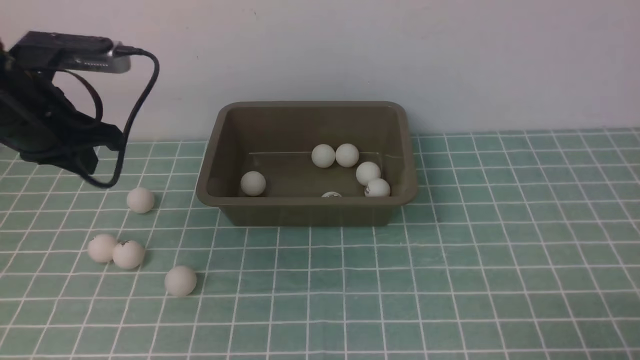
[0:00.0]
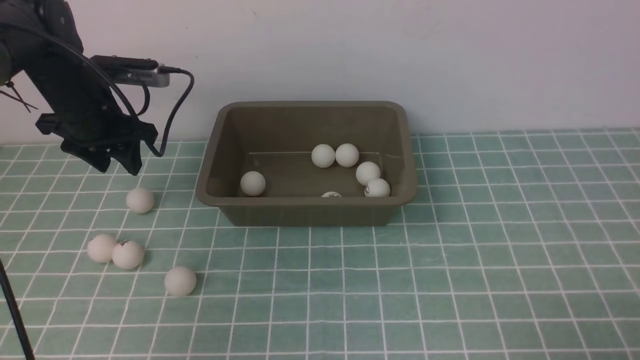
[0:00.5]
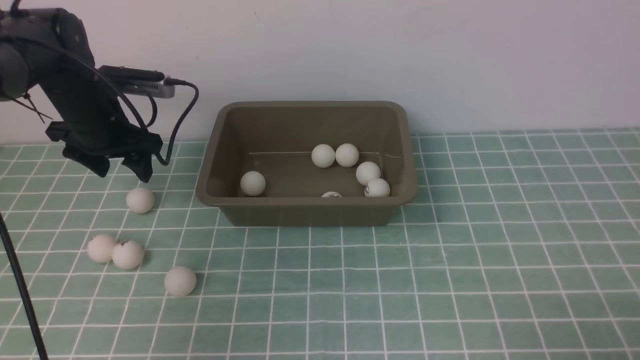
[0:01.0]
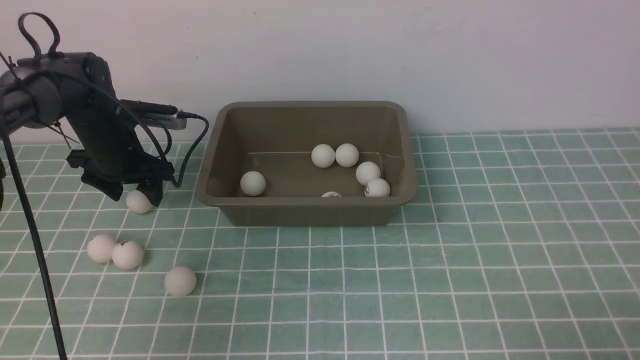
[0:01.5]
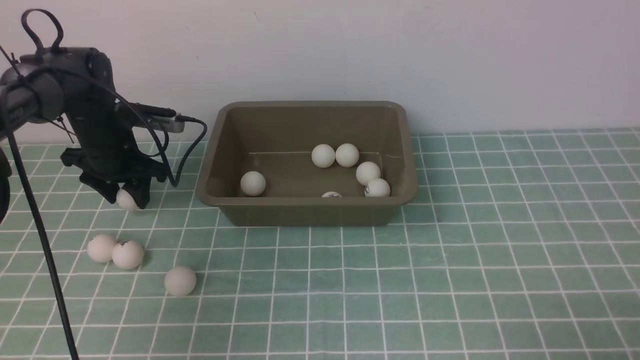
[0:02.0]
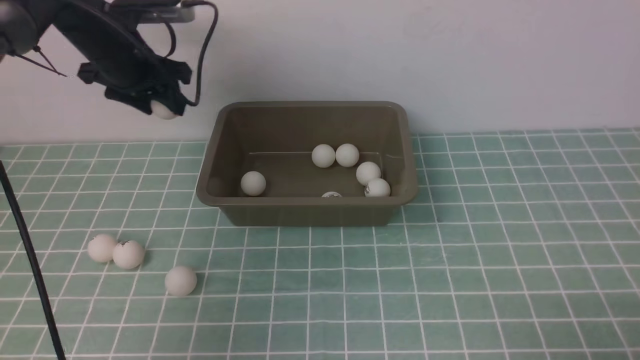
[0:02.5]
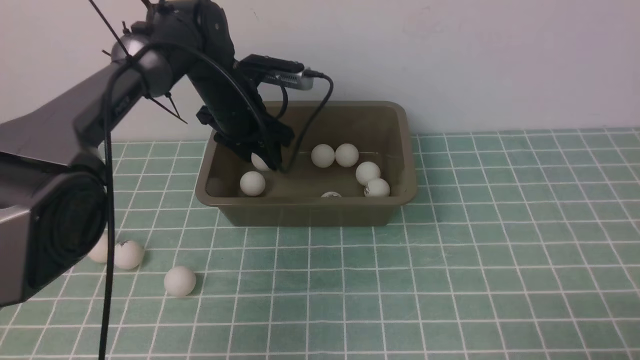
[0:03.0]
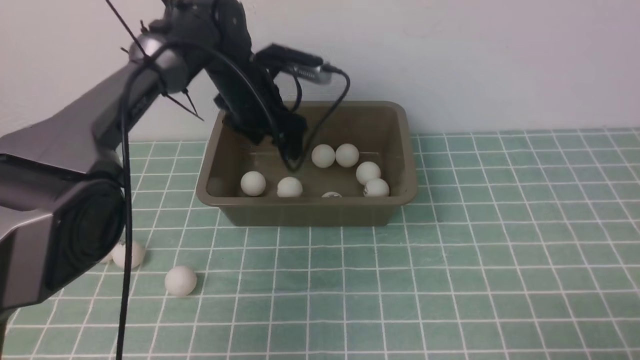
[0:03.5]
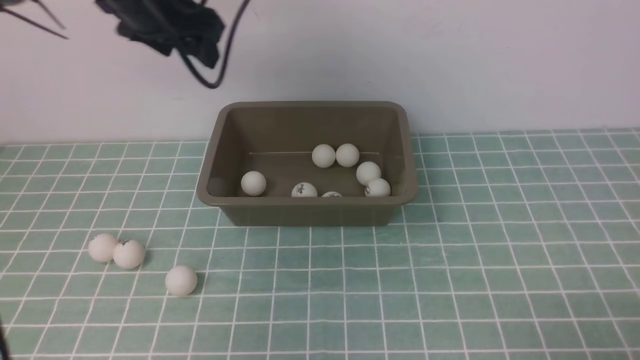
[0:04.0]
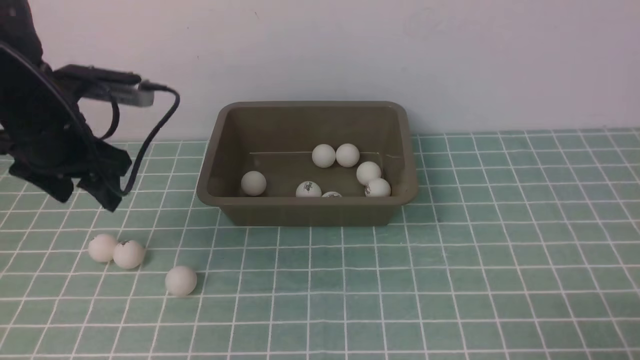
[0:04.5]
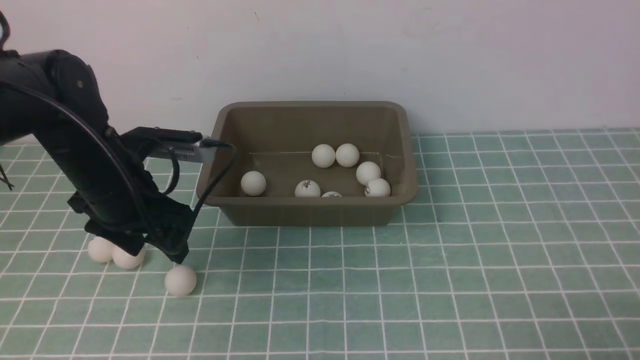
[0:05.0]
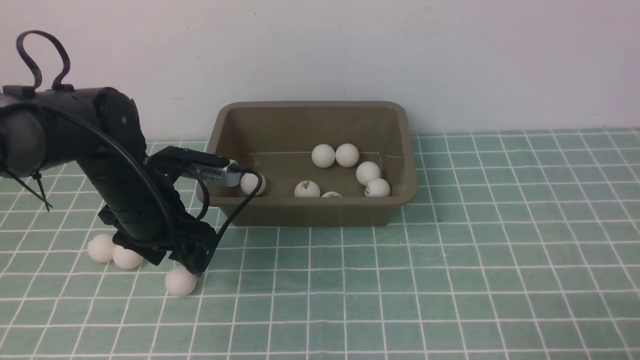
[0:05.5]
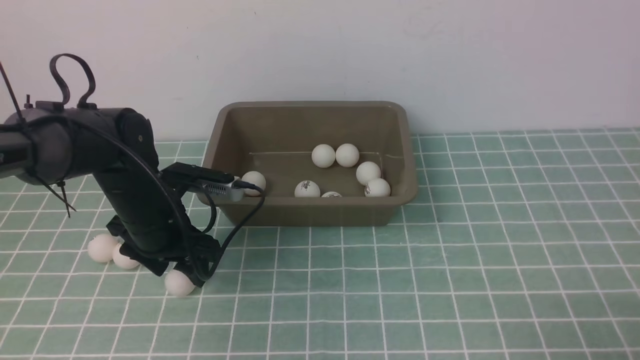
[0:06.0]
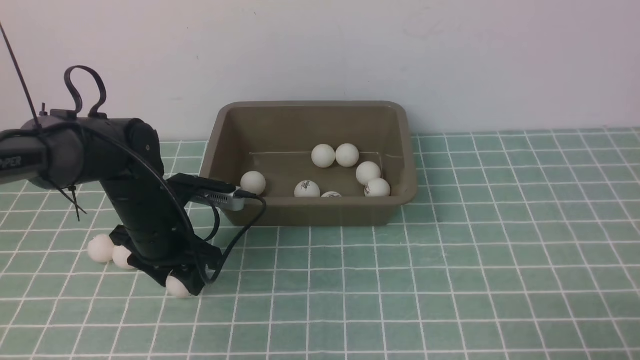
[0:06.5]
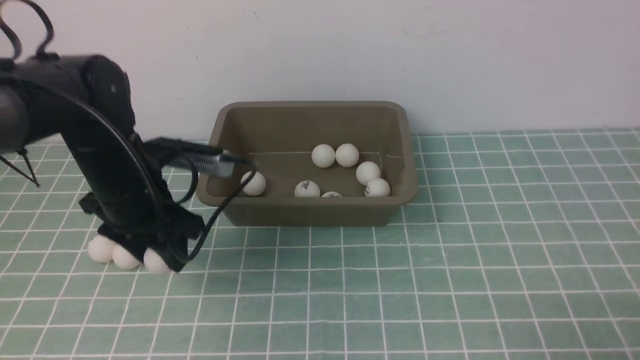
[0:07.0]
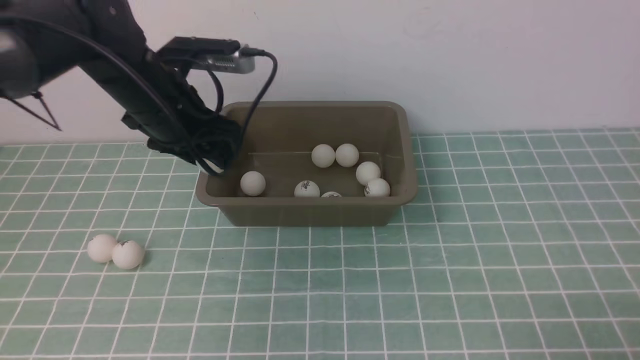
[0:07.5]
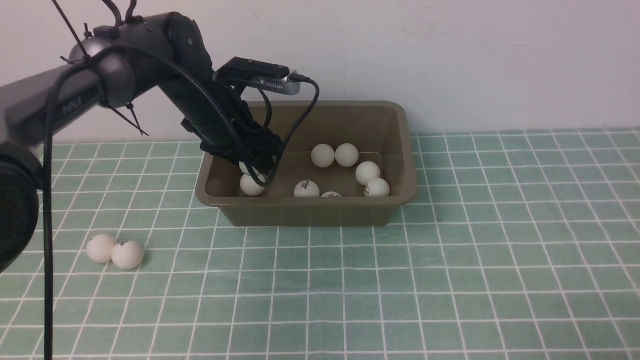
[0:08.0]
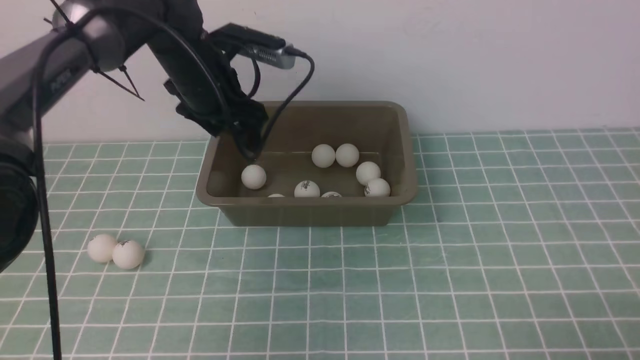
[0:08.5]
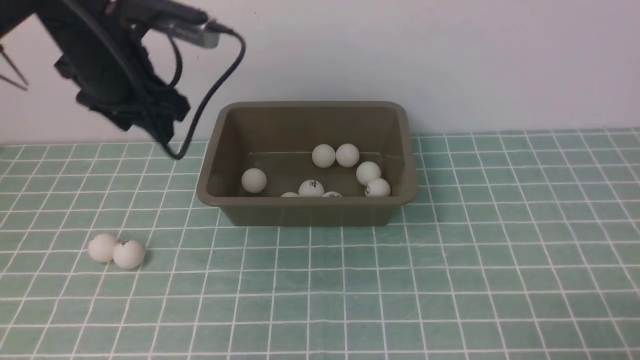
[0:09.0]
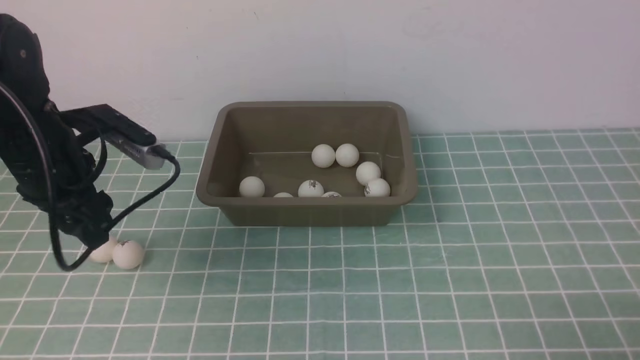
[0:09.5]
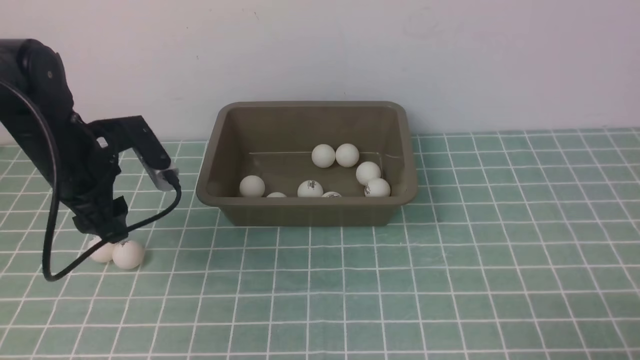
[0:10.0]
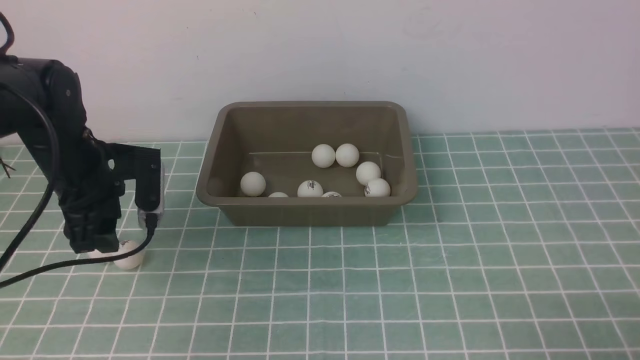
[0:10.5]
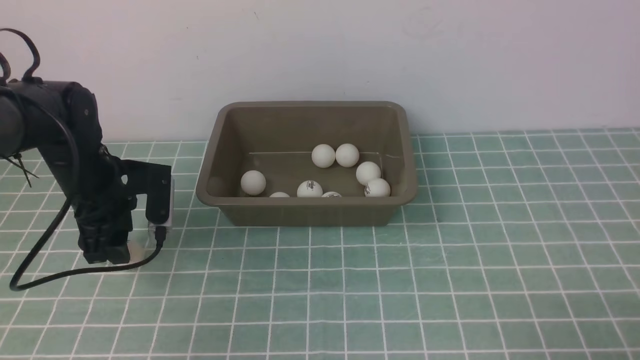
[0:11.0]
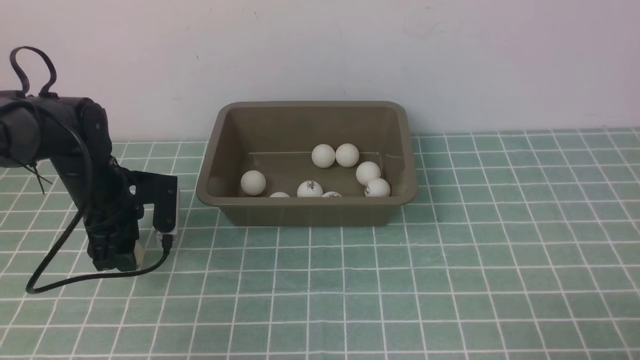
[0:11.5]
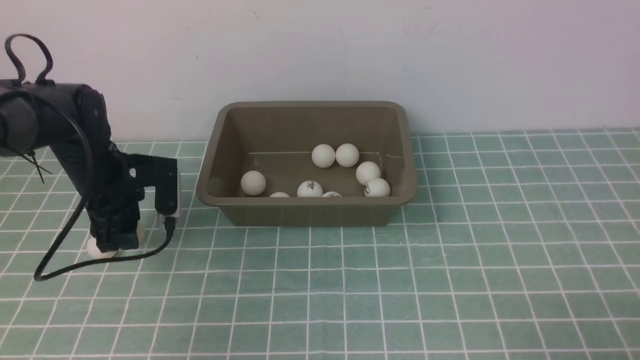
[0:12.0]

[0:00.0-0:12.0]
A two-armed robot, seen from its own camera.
Step, 0:00.0 to 0:02.0: use the left arm to clamp the table tennis ball closest to it.
Step, 0:02.5 to 0:03.5: use the left arm to put the table tennis ball into the box.
Step, 0:04.0 to 0:07.0: use the left arm to clamp the table tennis ball closest to it.
Step, 0:07.5 to 0:08.5: use the left arm to put the table tennis ball into the box.
0:00.0 to 0:02.0: The left gripper moves forward and downward, approximately 25 cm, and opens up.
0:02.0 to 0:04.0: The left gripper shifts roughly 20 cm upward and to the right.
0:04.0 to 0:06.0: The left gripper goes about 20 cm downward and backward.
0:06.0 to 0:08.0: The left gripper is displaced forward, upward and to the right by about 10 cm.
0:08.0 to 0:10.0: The left gripper heads to the left and backward, covering approximately 15 cm.
0:10.0 to 0:12.0: The left gripper heads downward, covering approximately 5 cm.

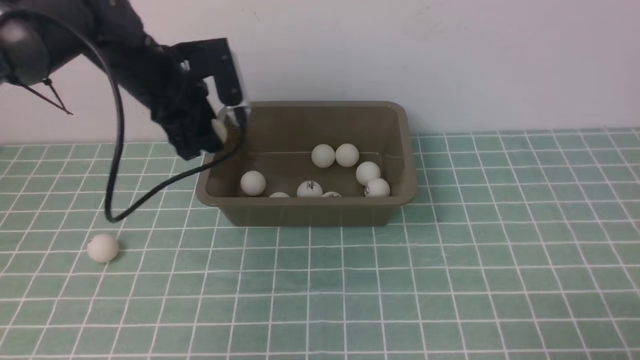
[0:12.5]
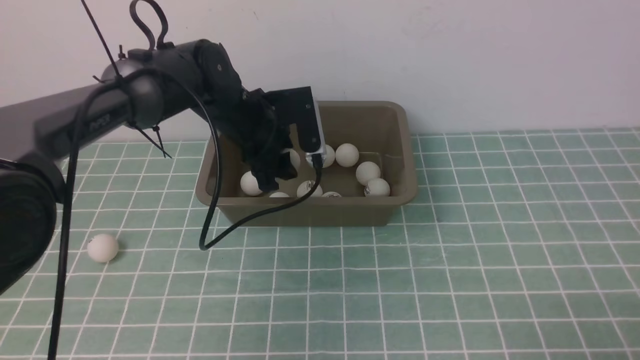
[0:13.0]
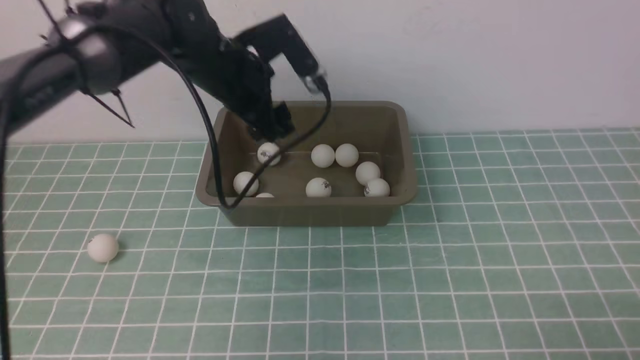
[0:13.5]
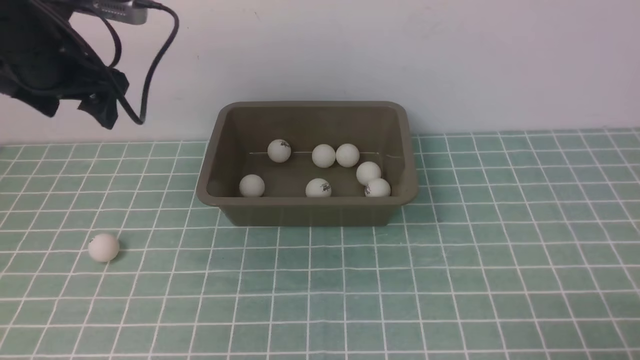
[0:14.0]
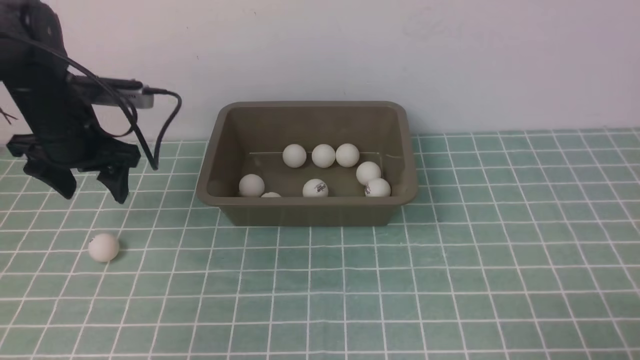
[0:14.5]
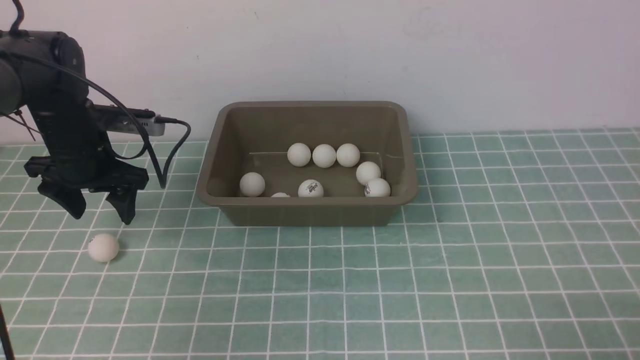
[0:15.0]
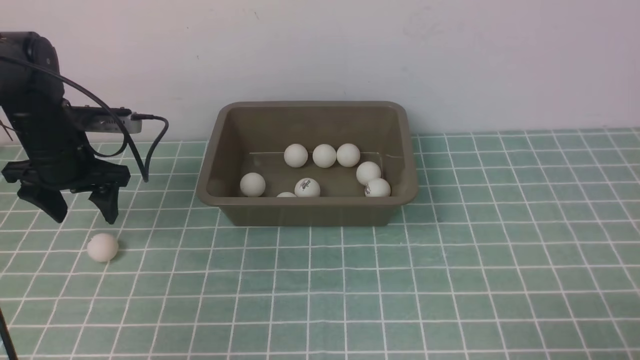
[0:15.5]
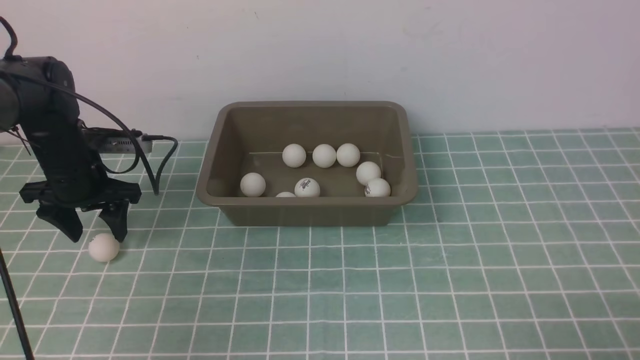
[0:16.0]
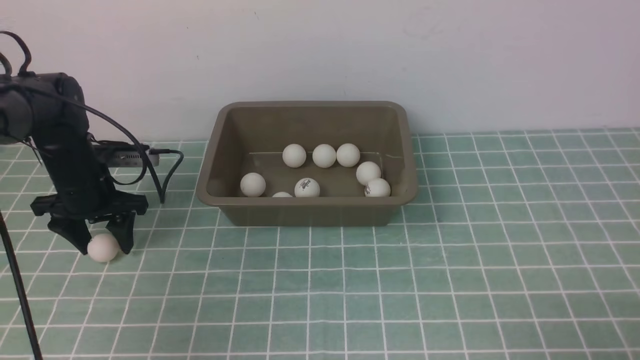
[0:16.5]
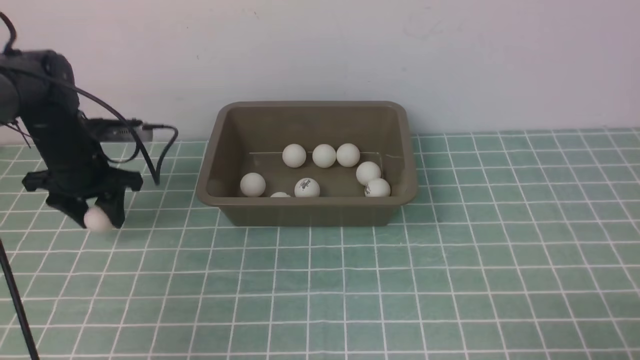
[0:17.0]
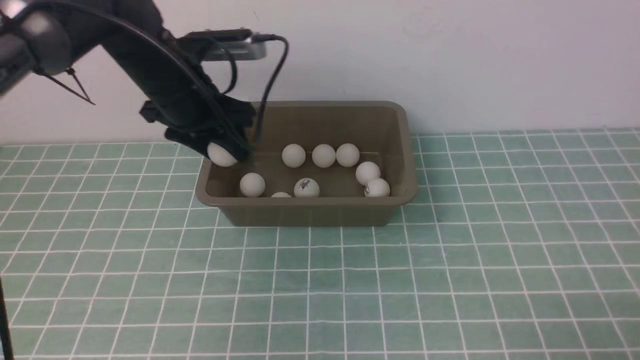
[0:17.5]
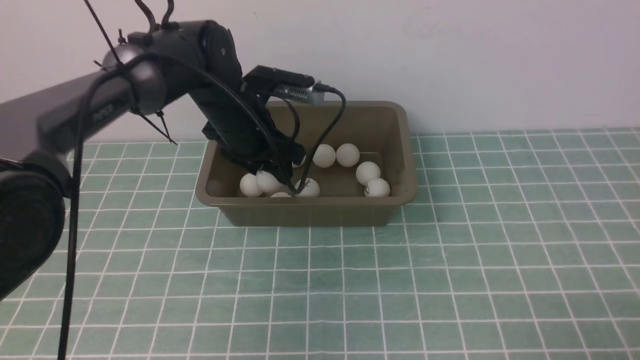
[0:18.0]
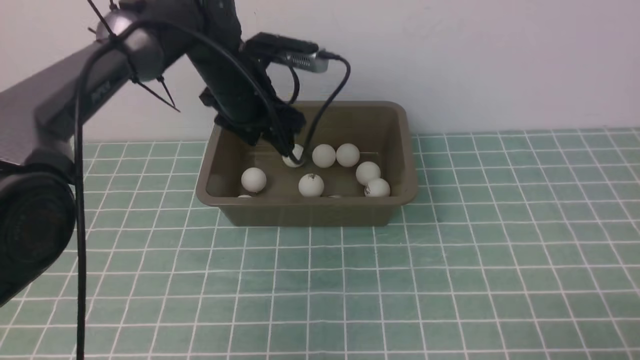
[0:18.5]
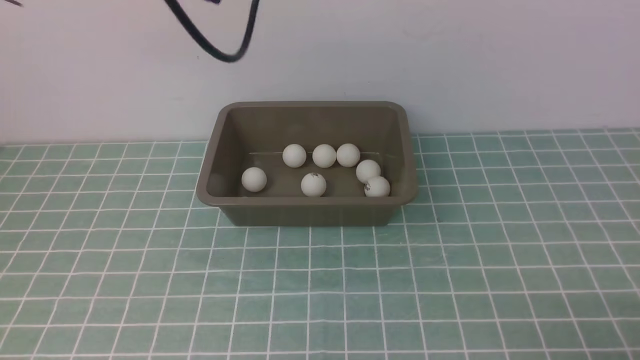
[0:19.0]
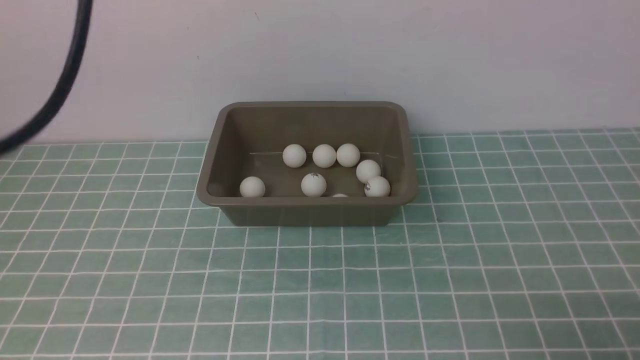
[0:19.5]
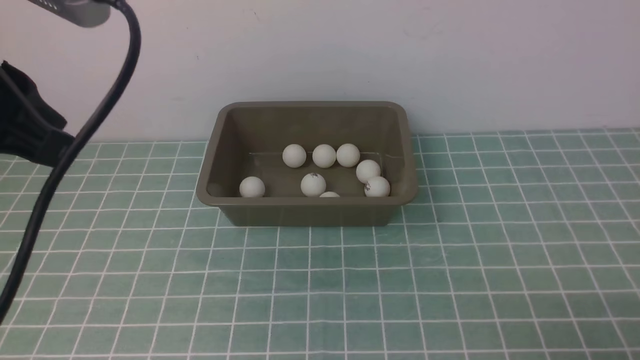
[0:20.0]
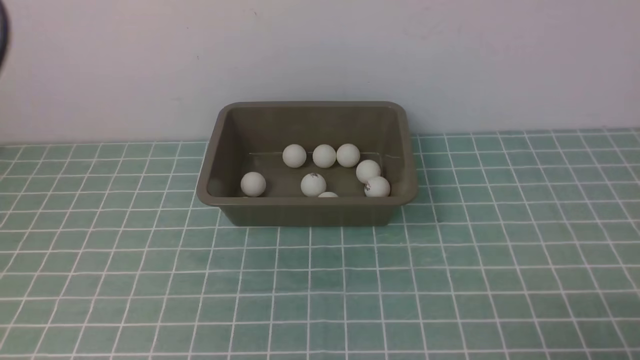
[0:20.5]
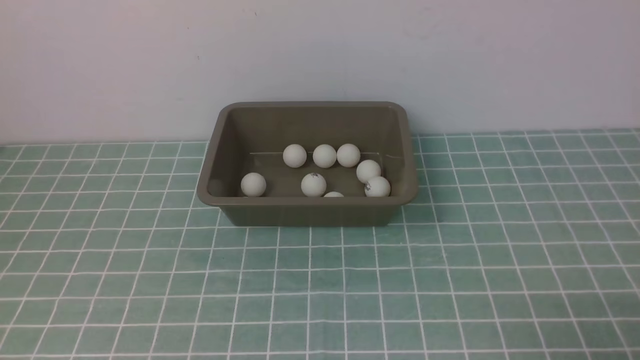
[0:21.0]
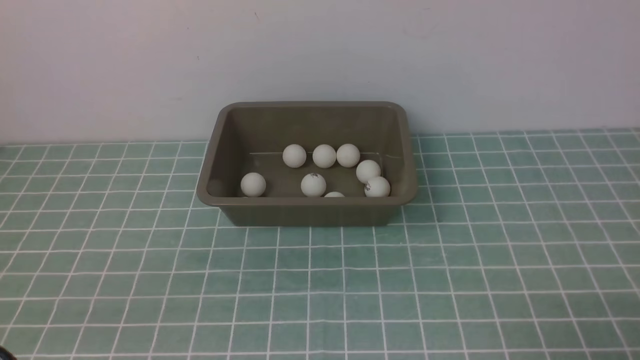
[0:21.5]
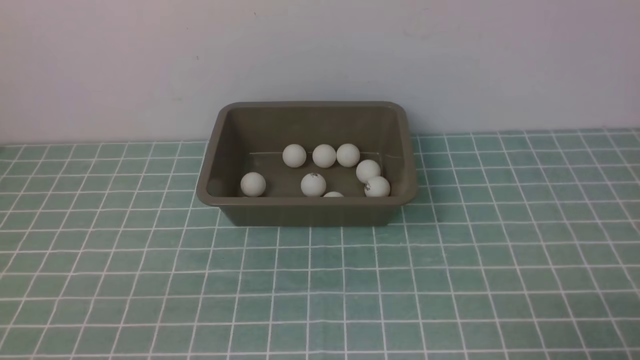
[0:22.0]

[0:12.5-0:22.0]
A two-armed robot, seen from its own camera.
Step, 0:12.5 to 0:13.0: use the left arm to put the table tennis ball into the box.
Step, 0:14.0 to 0:17.0: use the left arm to clamp the table tennis ball closest to it.
Step, 0:17.5 to 0:18.0: use the left arm to put the table tennis ball into the box.
0:12.5 to 0:14.5: The left gripper goes about 5 cm to the left, and opens its fingers.
0:14.5 to 0:16.5: The left gripper goes about 10 cm downward.
0:16.5 to 0:18.0: The left gripper travels to the right and upward by about 20 cm.
0:18.0 to 0:20.0: The left gripper travels backward, upward and to the left by about 35 cm, and closes its fingers.
0:20.0 to 0:22.0: The left gripper moves downward and backward, some 30 cm.
